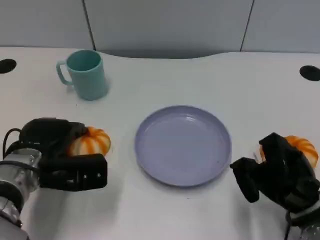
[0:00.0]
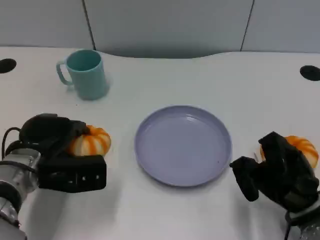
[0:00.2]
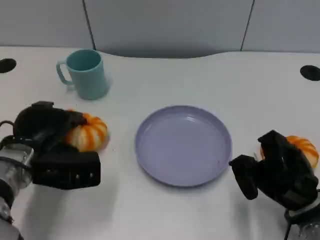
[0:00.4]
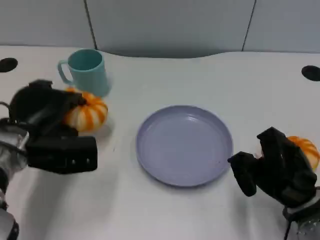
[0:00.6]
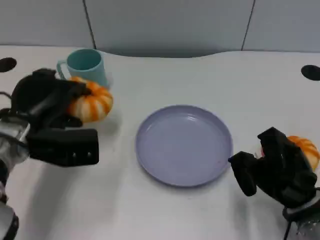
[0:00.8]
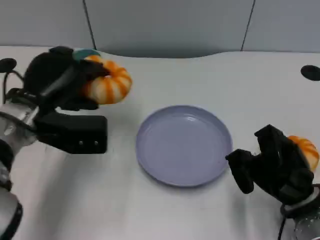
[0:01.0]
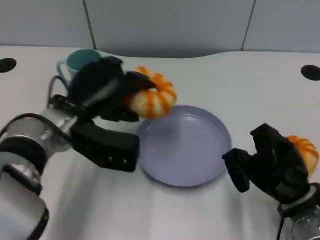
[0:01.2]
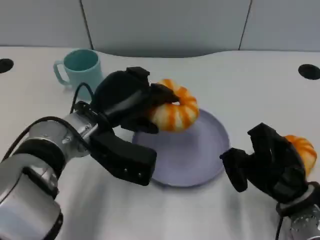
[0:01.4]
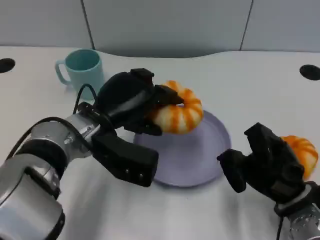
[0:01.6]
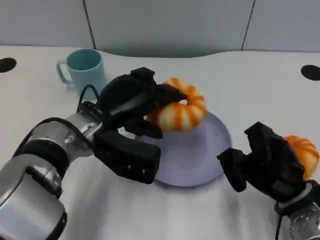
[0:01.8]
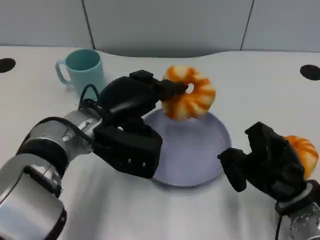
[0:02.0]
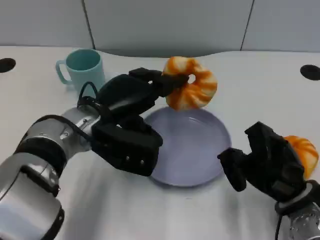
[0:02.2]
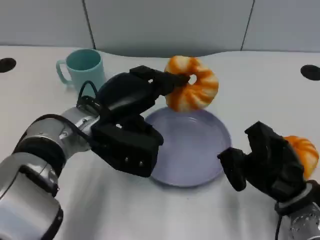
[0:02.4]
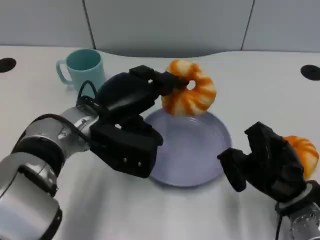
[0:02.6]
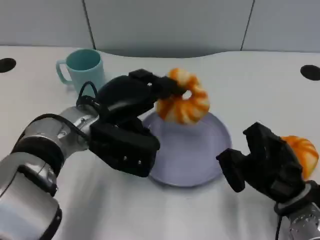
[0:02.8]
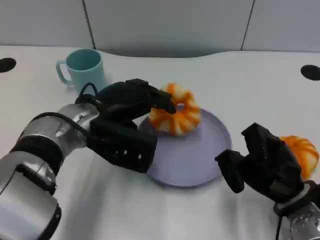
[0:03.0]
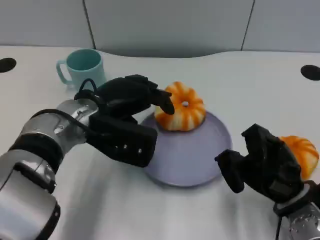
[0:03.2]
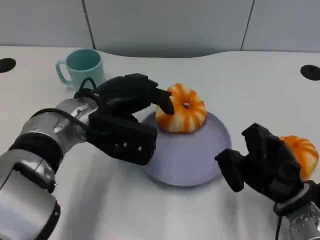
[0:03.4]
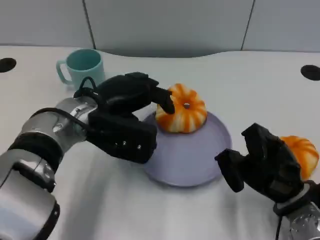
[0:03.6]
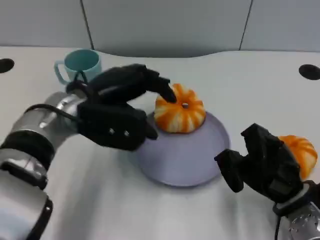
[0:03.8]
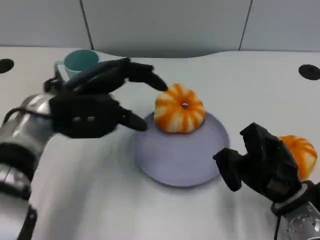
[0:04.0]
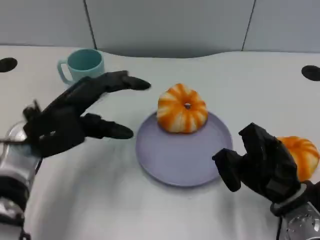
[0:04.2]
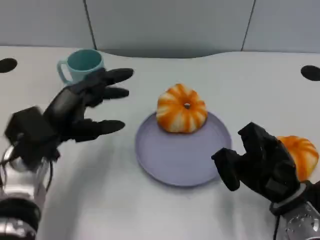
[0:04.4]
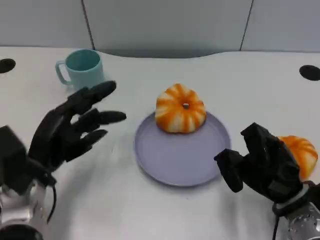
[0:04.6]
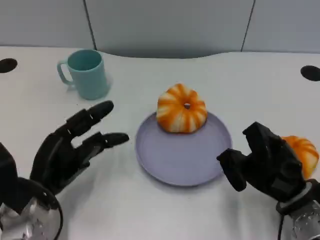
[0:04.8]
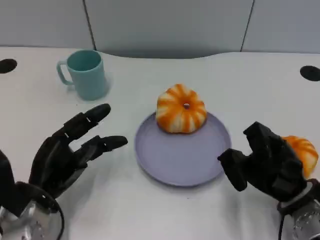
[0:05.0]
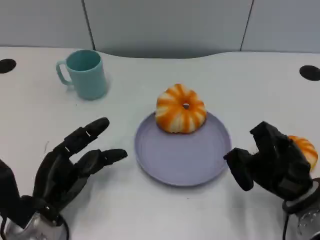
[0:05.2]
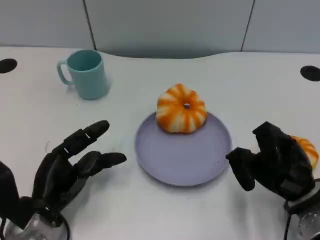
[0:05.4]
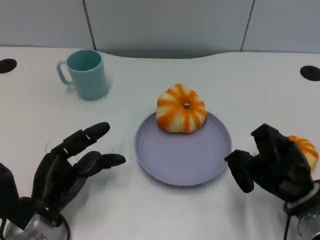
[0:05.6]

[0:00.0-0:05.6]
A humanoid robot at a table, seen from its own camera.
Task of the whole recording: Grasp the bread from the table and place it into the plate.
0:00.0 to 0:01.4: The left hand goes about 10 cm to the right and upward.
0:01.4 to 0:02.8: The hands make only small movements.
0:02.8 to 0:04.2: The left hand goes some 5 cm to the left.
0:04.2 to 0:05.6: The left hand shifts roughly 10 cm downward and backward.

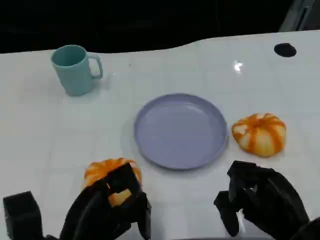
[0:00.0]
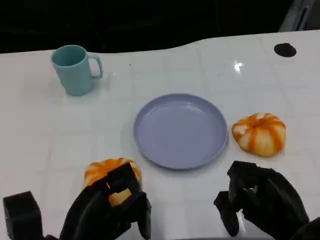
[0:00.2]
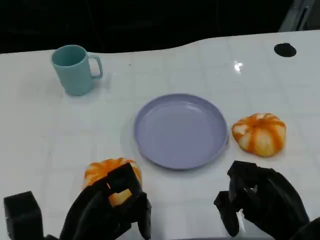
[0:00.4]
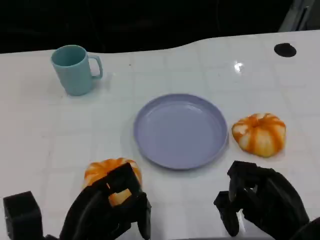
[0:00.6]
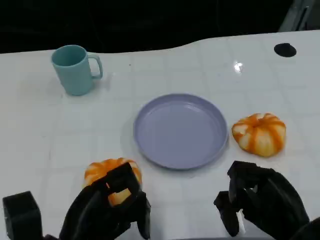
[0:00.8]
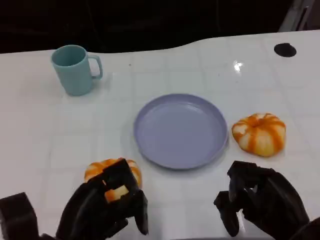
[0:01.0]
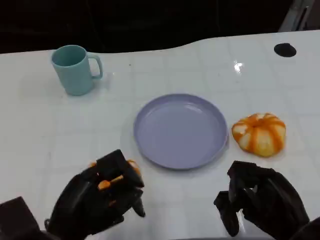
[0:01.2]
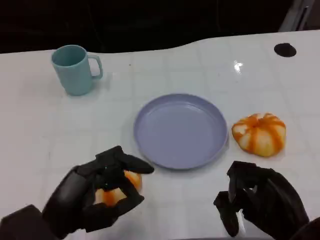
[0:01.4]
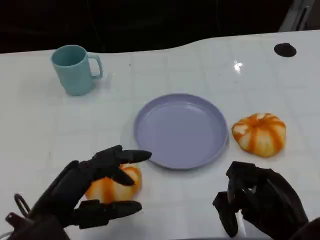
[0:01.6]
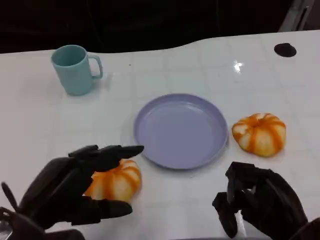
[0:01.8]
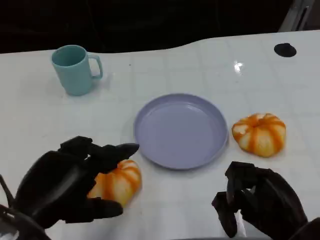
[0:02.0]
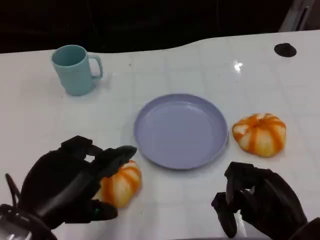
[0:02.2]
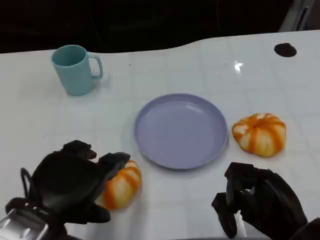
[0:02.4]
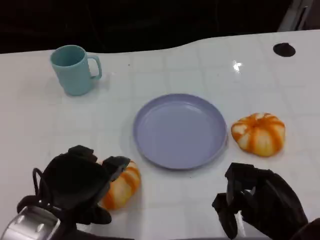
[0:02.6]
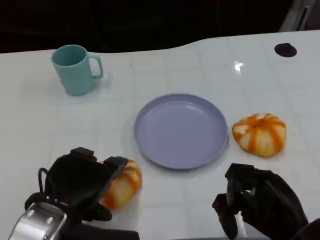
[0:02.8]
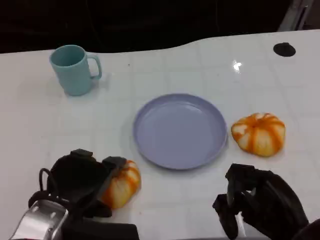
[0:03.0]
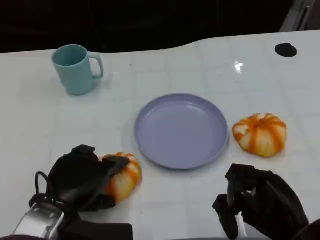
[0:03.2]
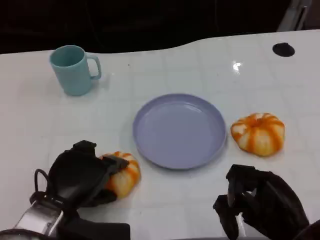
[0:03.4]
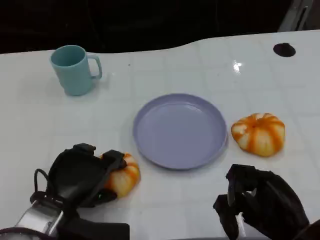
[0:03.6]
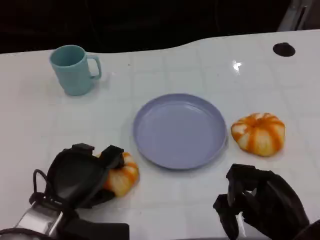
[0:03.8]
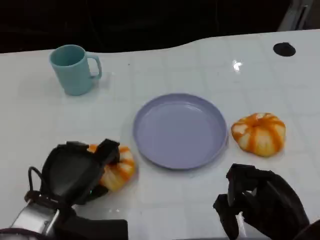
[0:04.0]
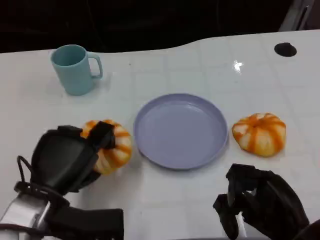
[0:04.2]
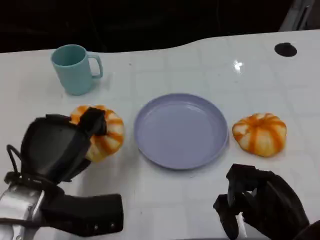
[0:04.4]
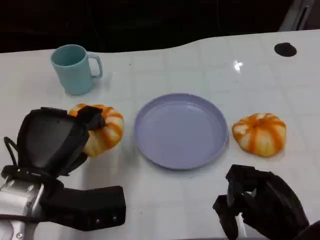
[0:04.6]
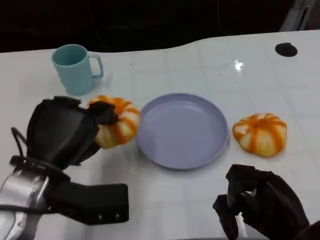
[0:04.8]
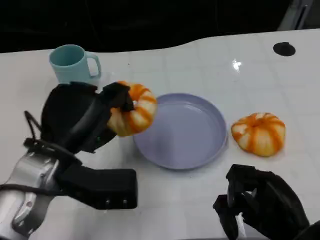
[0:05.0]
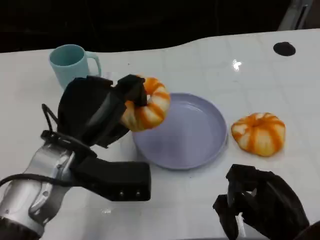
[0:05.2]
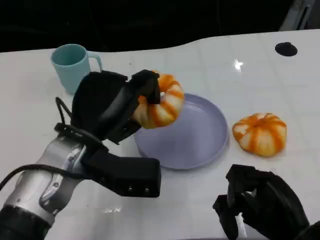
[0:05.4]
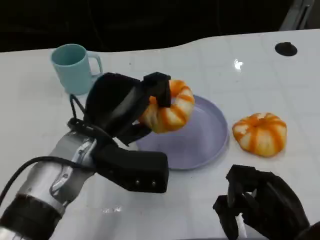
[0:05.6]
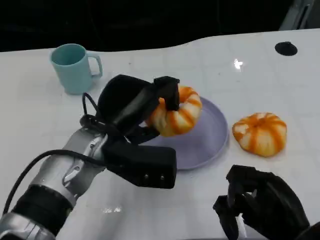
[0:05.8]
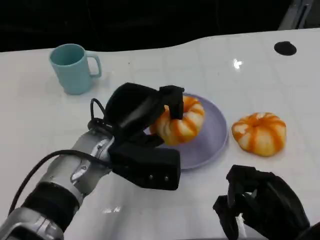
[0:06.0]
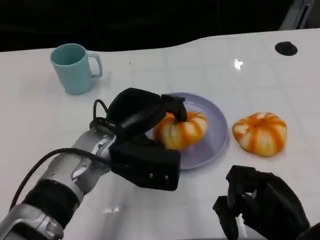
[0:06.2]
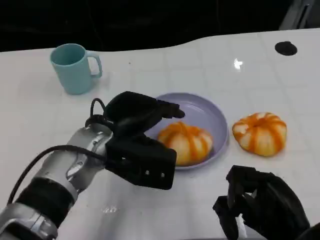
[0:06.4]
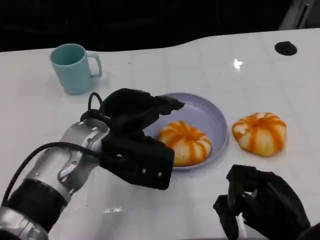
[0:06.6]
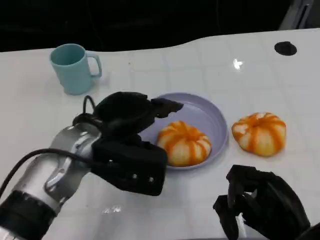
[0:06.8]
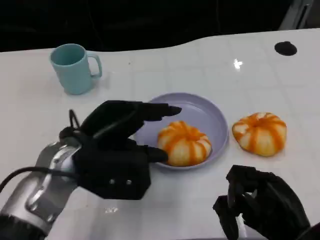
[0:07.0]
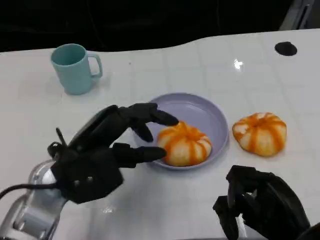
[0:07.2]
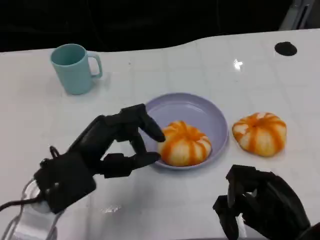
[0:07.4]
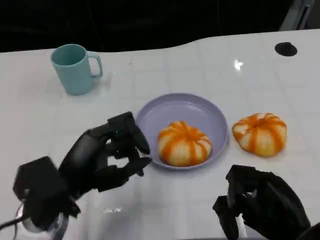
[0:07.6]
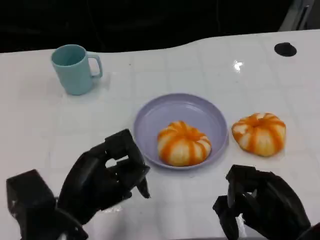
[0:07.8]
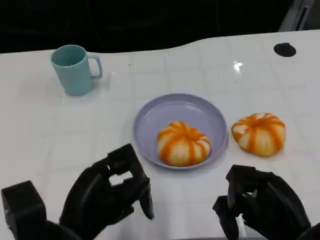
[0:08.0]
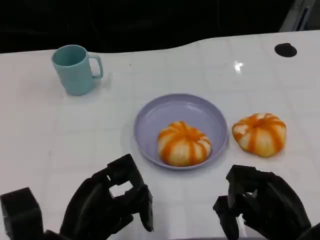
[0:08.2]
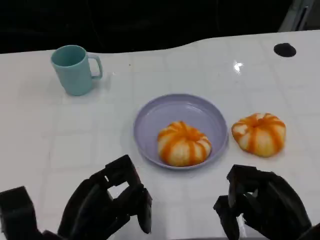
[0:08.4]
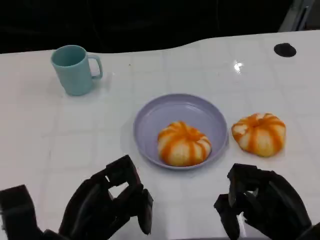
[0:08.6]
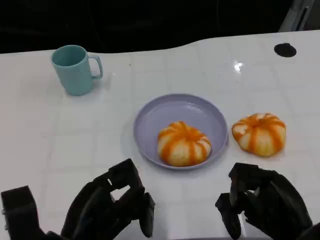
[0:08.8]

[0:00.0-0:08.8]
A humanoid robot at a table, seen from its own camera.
Task of the whole recording: Grasp the bread from the table and place it into the plate.
0:04.4 to 0:05.8: The left hand heads to the right and forward, covering about 10 cm.
0:05.8 to 0:07.4: The left hand shifts roughly 10 cm to the left and backward.
0:07.4 to 0:08.8: The left hand is displaced backward by some 5 cm.

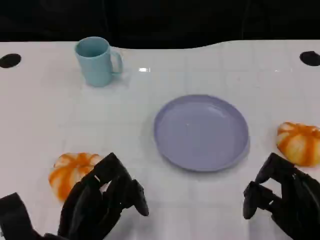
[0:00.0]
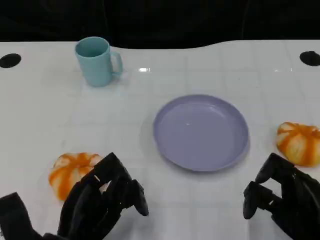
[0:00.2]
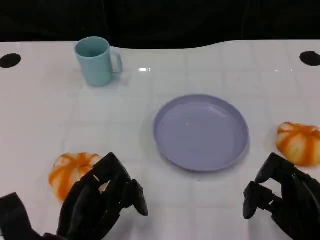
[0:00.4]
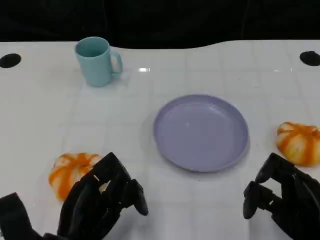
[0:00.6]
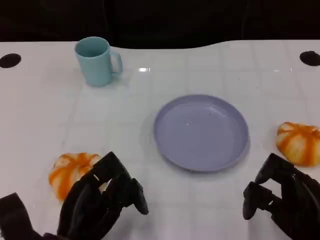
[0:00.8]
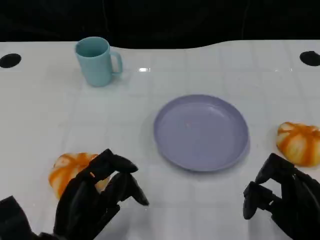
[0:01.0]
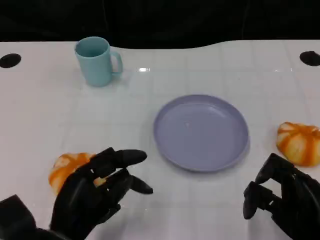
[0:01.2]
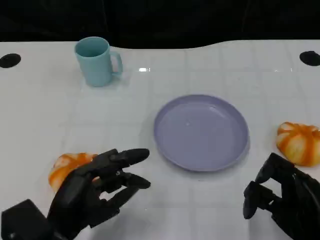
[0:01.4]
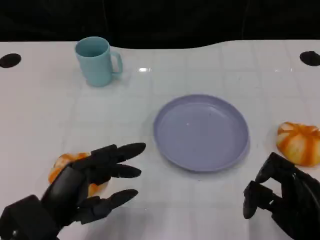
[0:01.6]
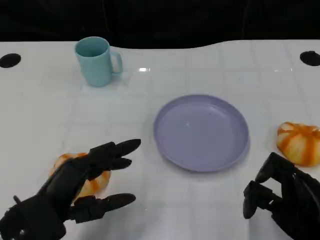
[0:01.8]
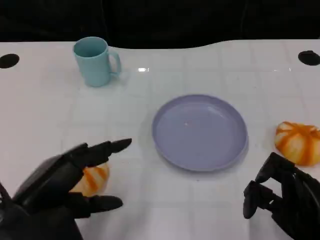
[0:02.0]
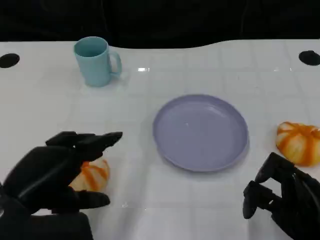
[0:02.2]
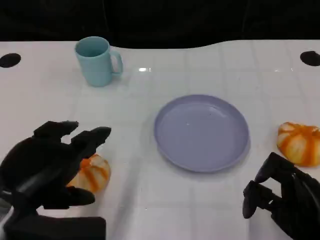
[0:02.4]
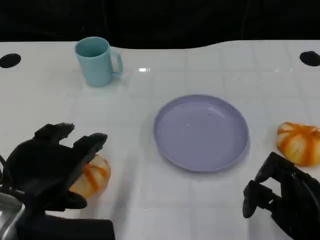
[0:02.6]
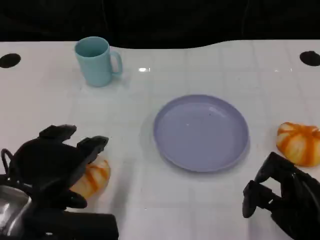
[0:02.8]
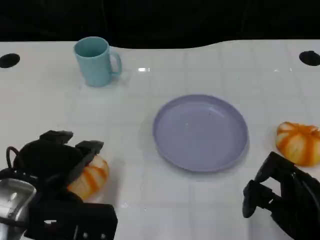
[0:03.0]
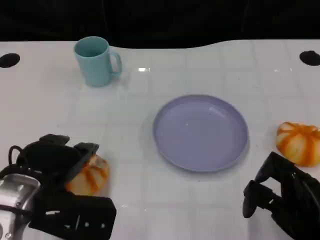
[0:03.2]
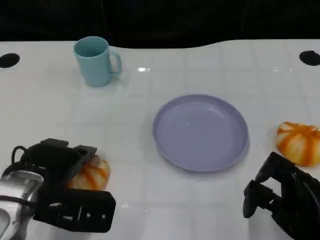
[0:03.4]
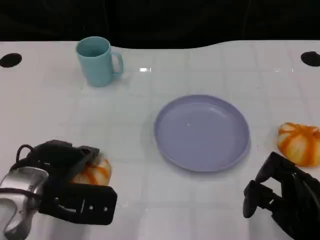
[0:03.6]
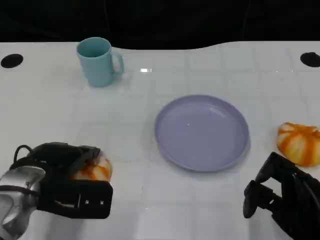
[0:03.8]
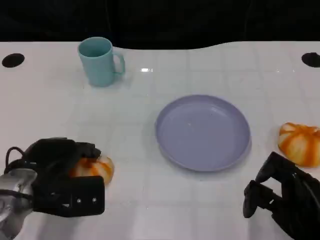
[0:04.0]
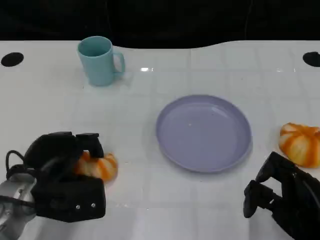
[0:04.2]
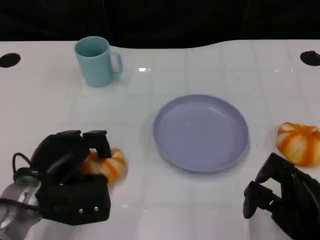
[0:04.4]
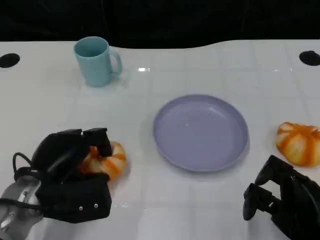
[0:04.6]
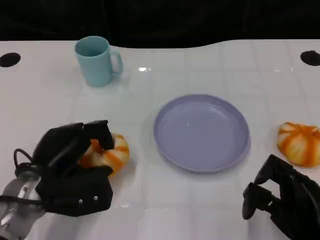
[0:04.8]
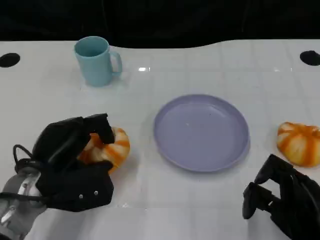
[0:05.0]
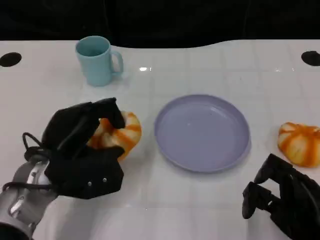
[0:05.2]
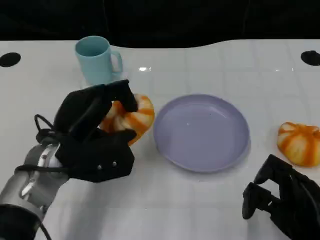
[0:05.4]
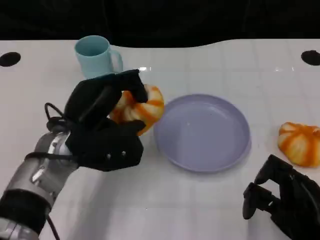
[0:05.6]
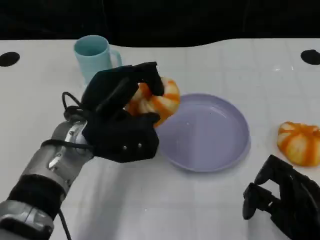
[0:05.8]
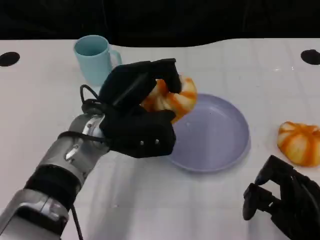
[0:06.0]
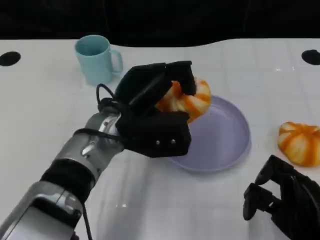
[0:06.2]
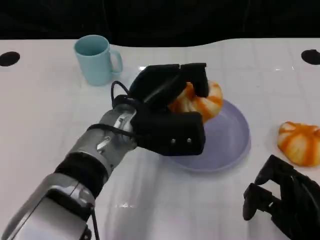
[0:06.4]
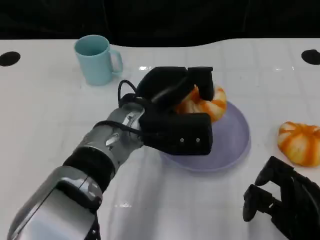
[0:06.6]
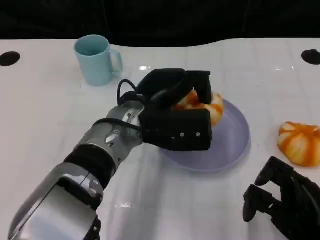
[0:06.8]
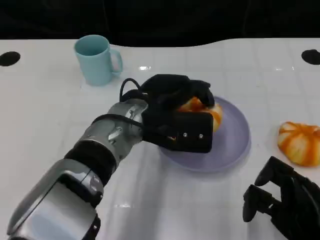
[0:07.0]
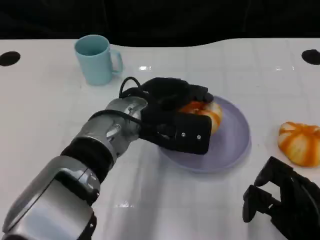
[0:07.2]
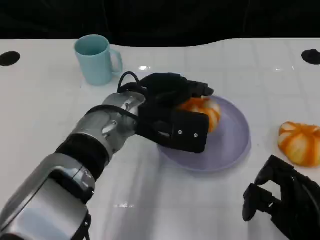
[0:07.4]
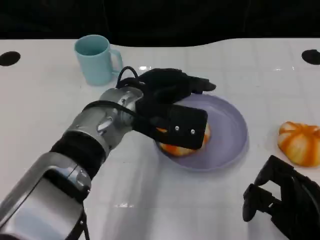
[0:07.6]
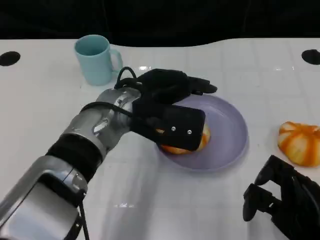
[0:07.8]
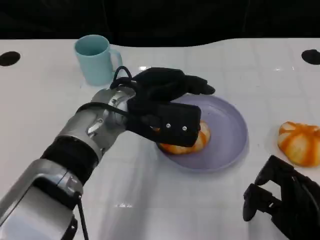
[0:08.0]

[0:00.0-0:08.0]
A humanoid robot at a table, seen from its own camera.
Task of the whole recording: Grasp the bread from the table and place it into the plate.
0:00.0 to 0:01.6: The left hand moves about 5 cm.
0:01.6 to 0:03.2: The left hand is displaced forward by about 5 cm.
0:03.2 to 0:04.8: The left hand changes place by approximately 5 cm.
0:04.8 to 0:06.4: The left hand shifts about 15 cm to the right and upward.
